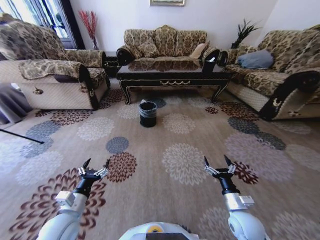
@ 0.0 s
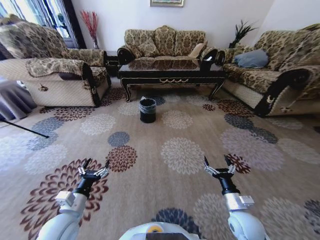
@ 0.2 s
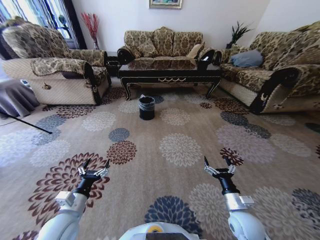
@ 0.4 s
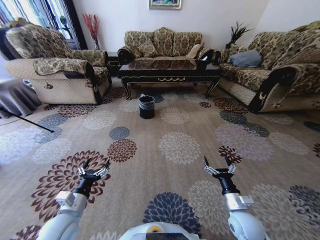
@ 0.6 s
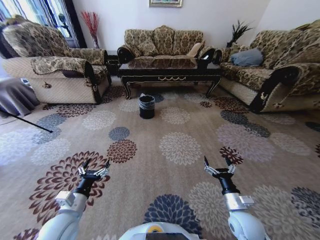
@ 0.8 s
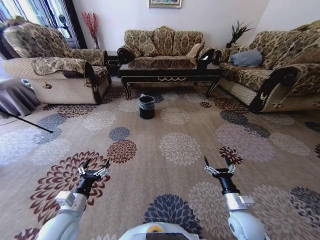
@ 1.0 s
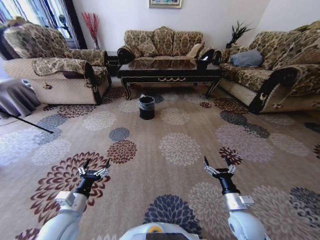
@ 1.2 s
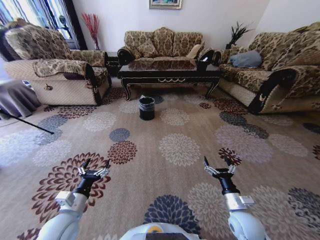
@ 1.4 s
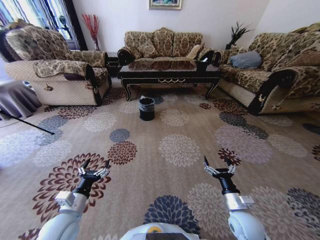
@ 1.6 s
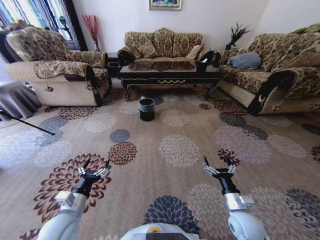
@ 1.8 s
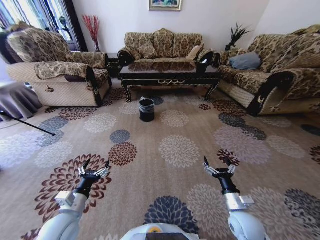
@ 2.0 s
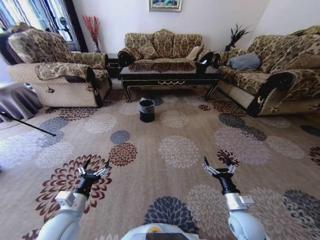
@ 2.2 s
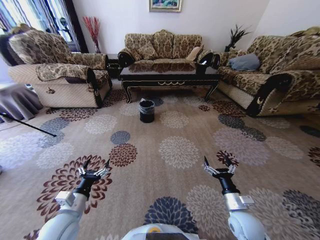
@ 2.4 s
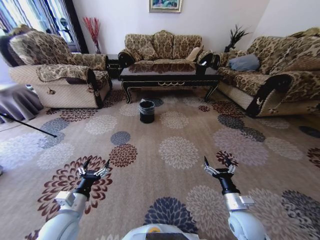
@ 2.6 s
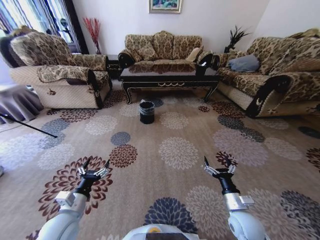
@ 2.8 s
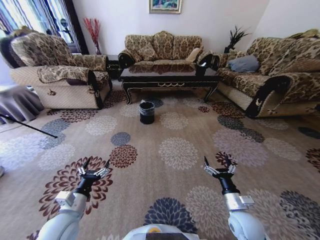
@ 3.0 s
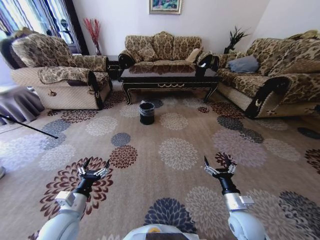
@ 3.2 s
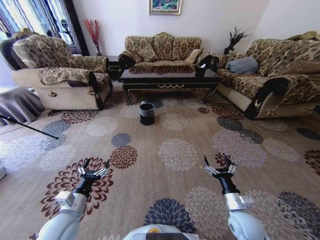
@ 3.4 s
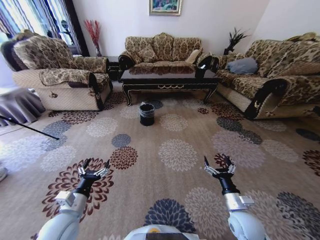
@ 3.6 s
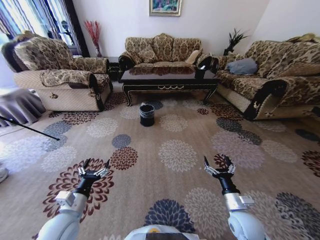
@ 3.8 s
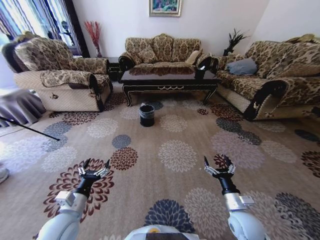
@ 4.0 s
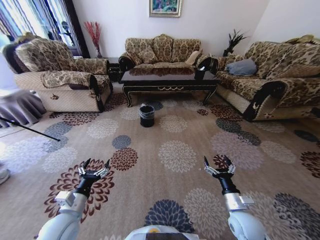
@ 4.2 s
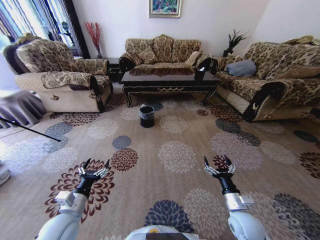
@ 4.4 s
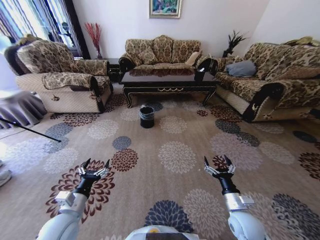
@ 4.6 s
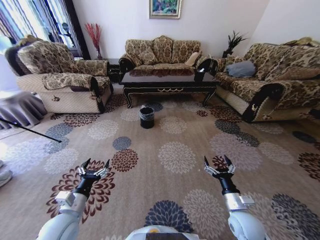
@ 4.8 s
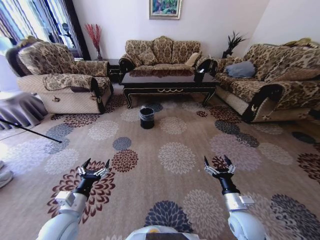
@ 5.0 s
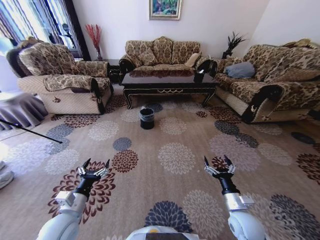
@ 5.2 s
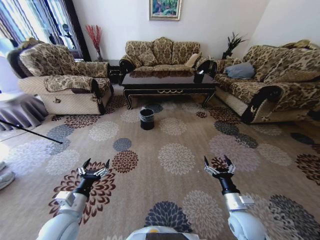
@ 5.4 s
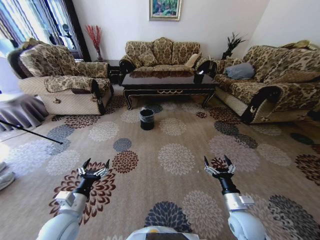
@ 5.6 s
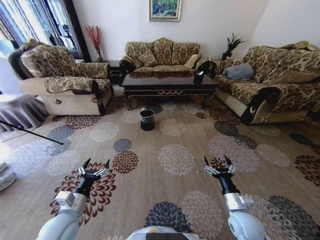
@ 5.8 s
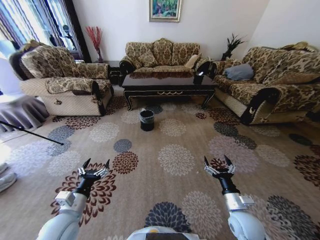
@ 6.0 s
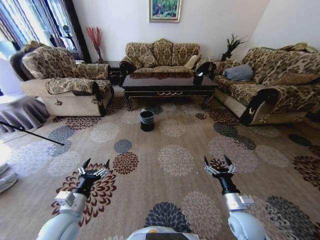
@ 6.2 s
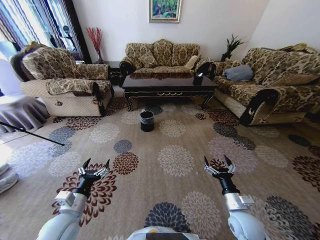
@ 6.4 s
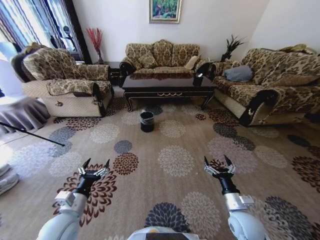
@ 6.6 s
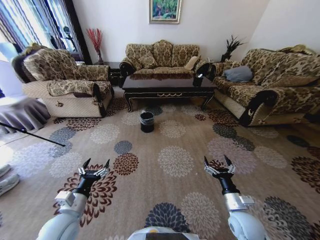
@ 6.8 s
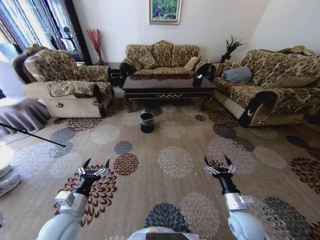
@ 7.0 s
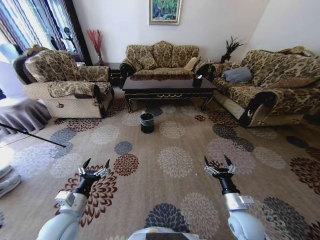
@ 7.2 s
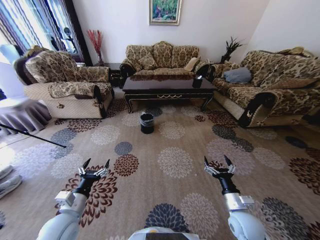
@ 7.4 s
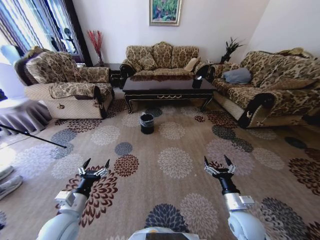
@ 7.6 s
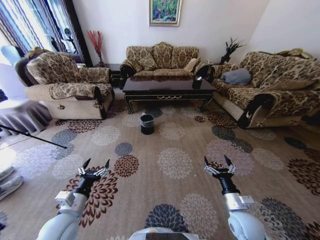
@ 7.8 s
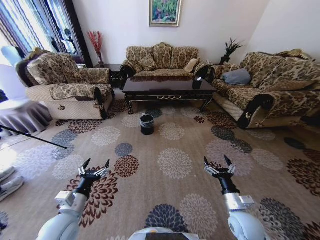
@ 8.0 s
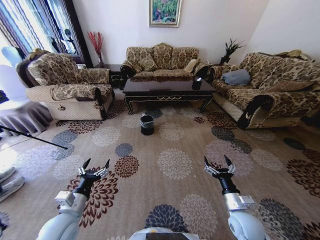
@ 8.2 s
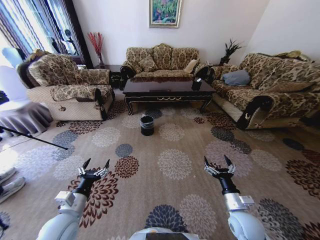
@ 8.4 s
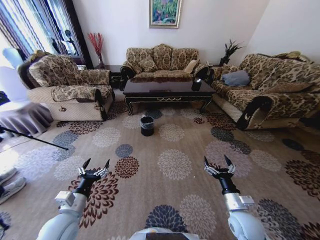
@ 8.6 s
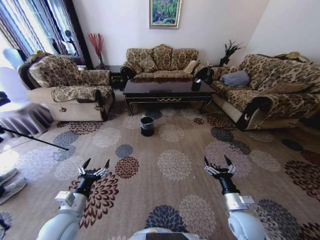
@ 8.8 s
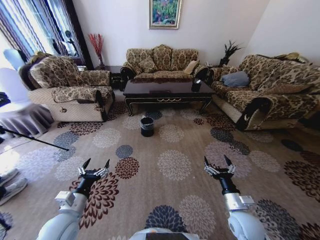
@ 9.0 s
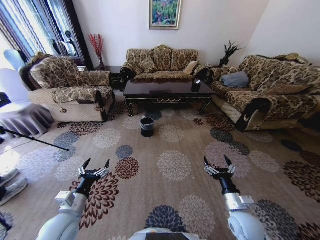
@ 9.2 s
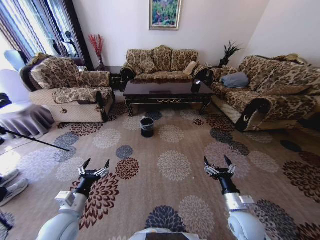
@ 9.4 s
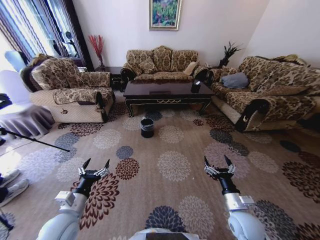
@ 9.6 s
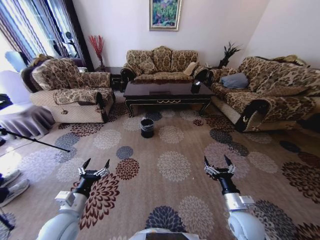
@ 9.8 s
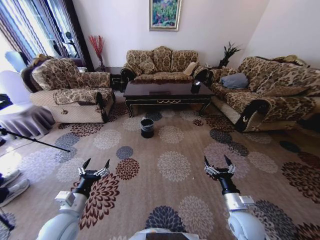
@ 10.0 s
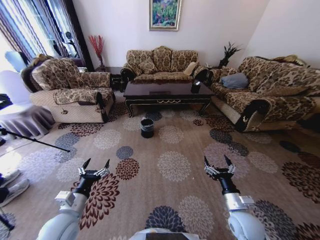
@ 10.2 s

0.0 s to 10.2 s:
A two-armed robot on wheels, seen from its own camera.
Task of the whole recording: Move to the front of the table and pick up the trash from the floor, then place it into the trash bin.
8.8 to 10.2 s: Both grippers stay about where they are.
